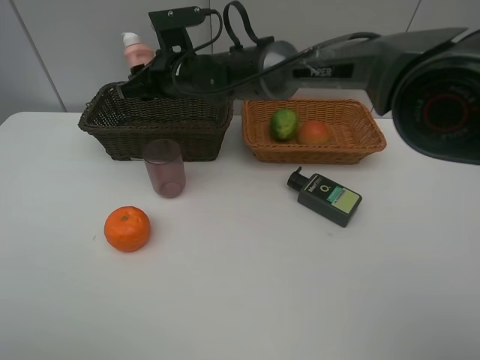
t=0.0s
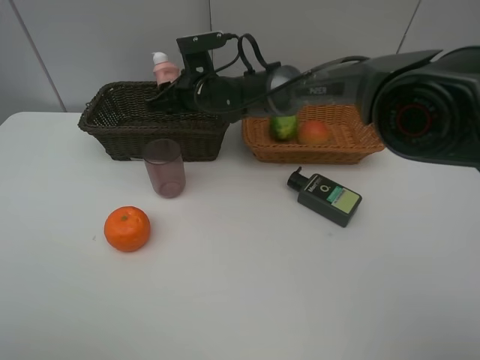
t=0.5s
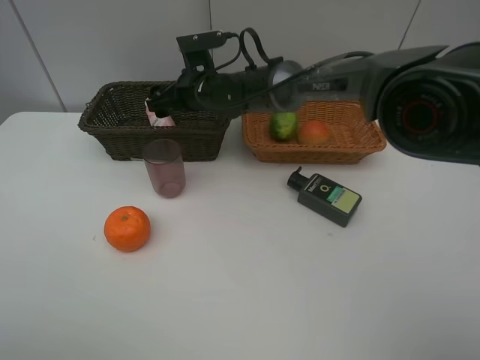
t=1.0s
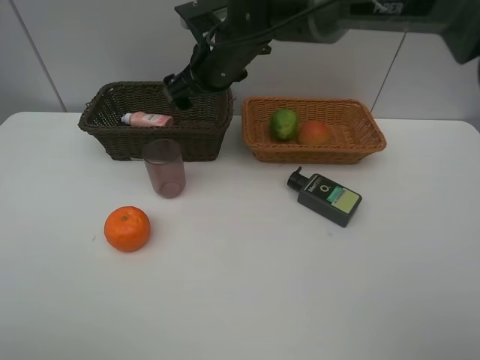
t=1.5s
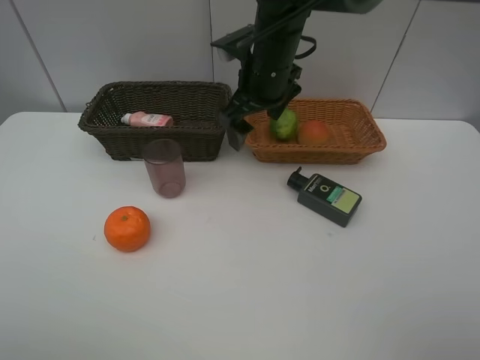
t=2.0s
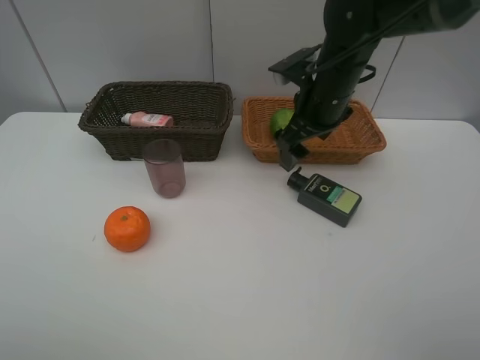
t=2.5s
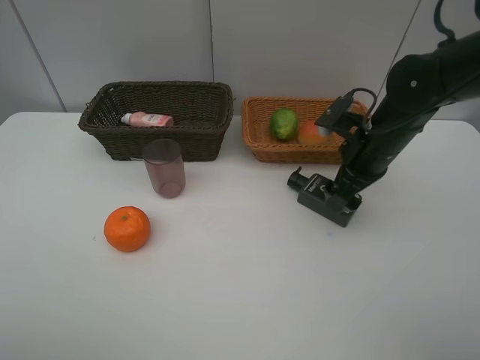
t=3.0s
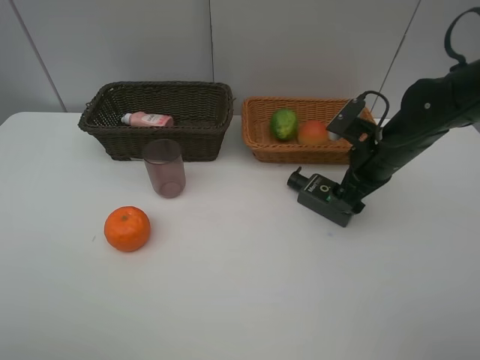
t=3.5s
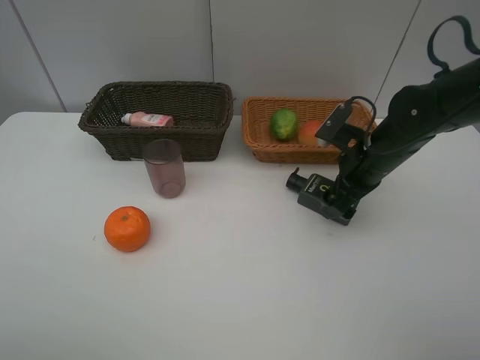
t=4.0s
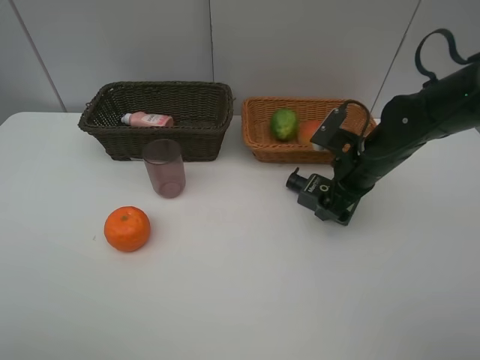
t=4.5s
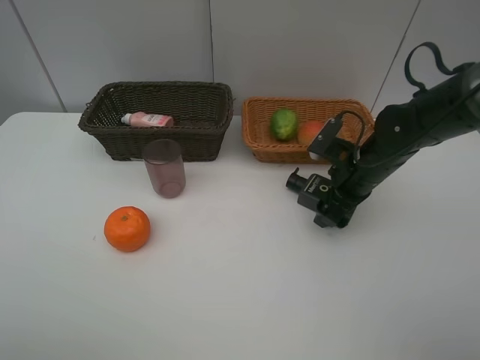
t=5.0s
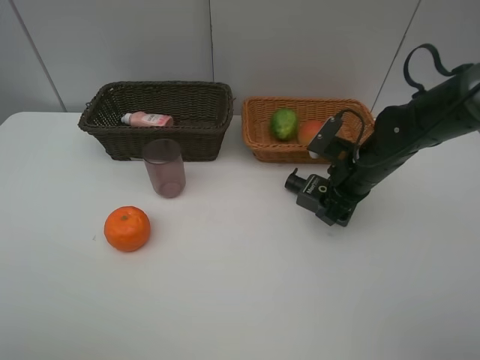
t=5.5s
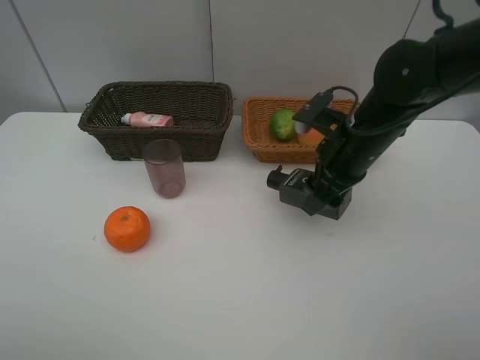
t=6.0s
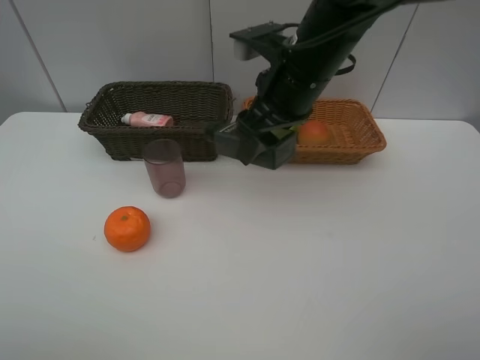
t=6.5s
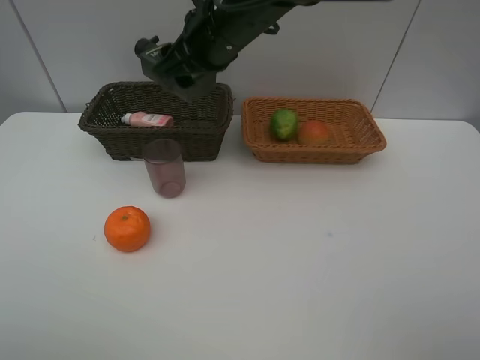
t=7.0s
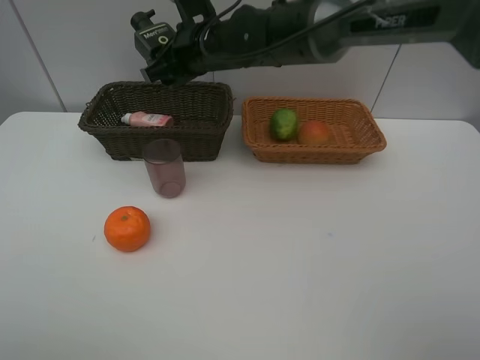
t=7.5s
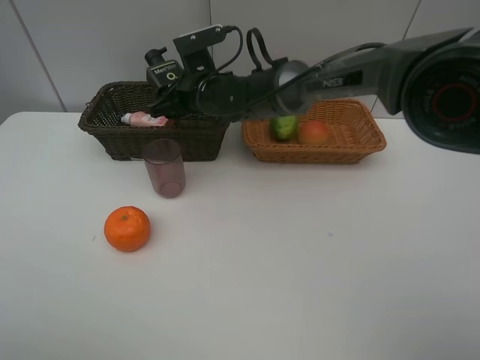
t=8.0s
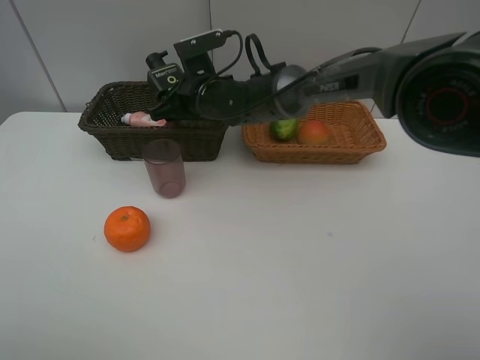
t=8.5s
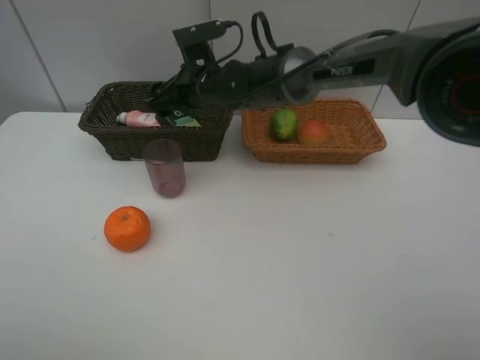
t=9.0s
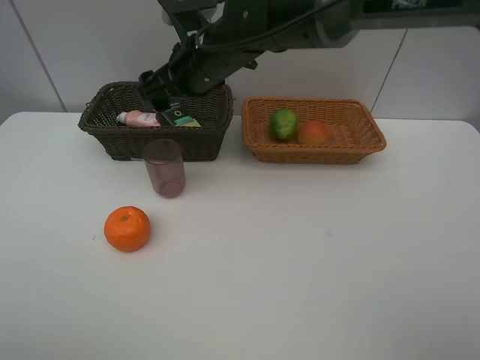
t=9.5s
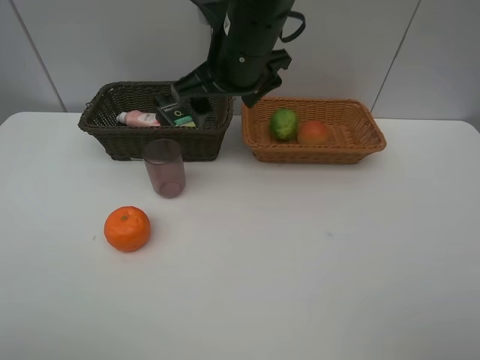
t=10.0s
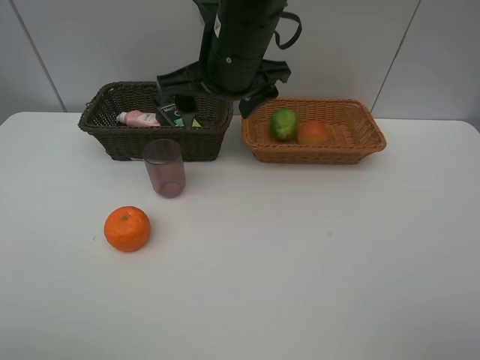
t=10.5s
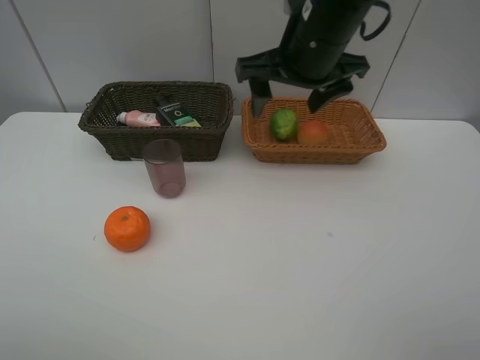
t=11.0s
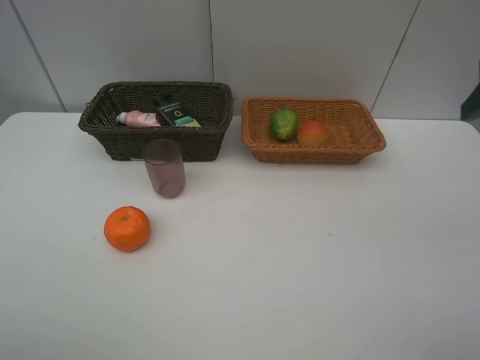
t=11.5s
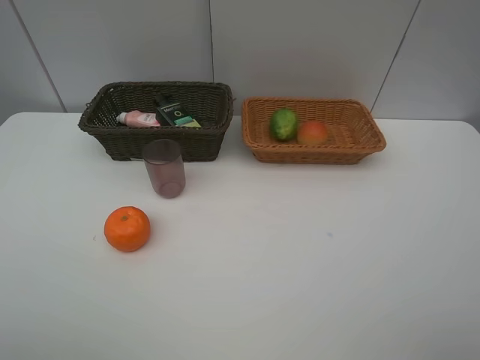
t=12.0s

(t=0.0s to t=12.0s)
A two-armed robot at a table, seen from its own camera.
Task of the whole recording: place multiple objects separately in different baskets.
t=0.0s - t=2.0s: The right gripper goes about 15 cm to the right and upward, and opens.
t=2.0s - t=4.0s: The right gripper travels to the right, downward and backward by some 20 cm.
t=4.0s - t=6.0s: The right gripper shifts some 5 cm upward, and closes up.
t=6.0s - t=8.0s: The right gripper moves to the left and forward, approximately 25 cm.
t=8.0s - t=10.0s: The right gripper travels upward, backward and to the right by approximately 15 cm, and opens up.
t=10.0s - t=12.0s: The right gripper is displaced backward and to the right by approximately 40 cm.

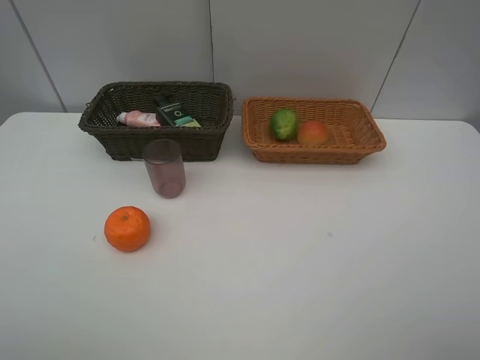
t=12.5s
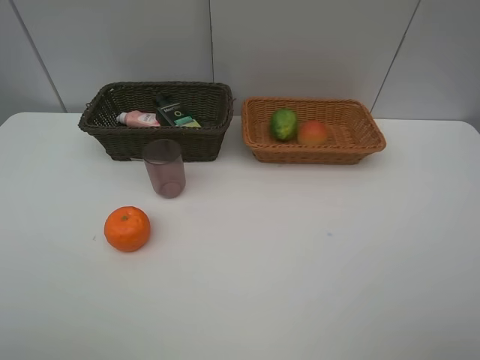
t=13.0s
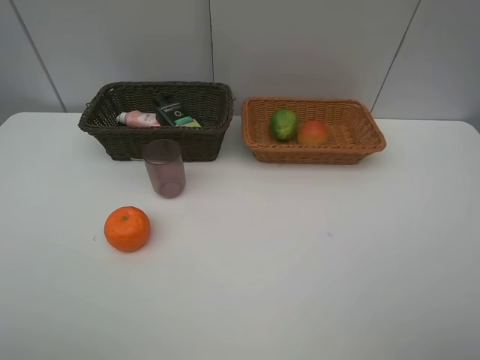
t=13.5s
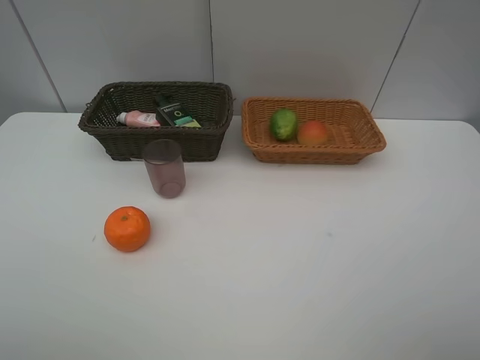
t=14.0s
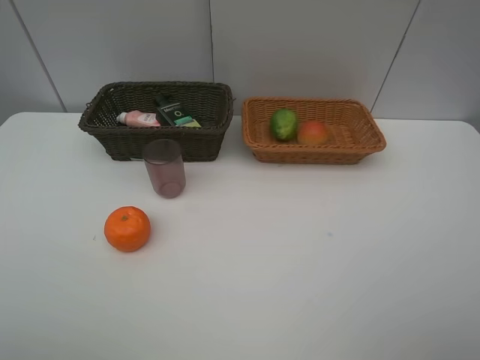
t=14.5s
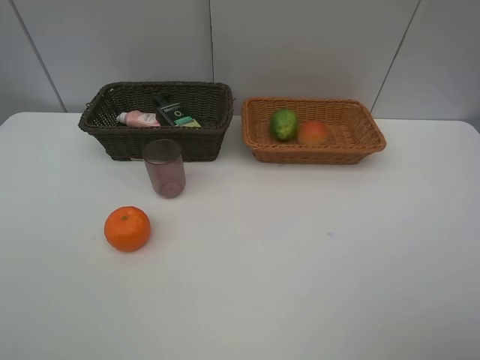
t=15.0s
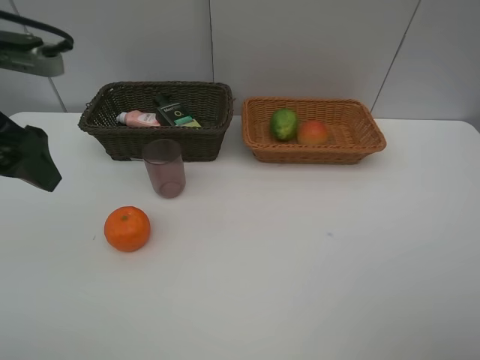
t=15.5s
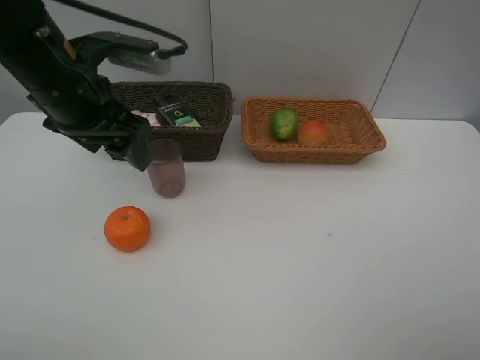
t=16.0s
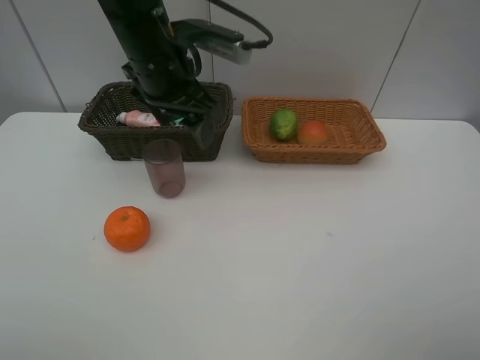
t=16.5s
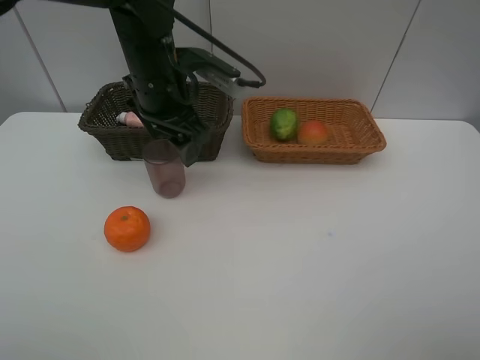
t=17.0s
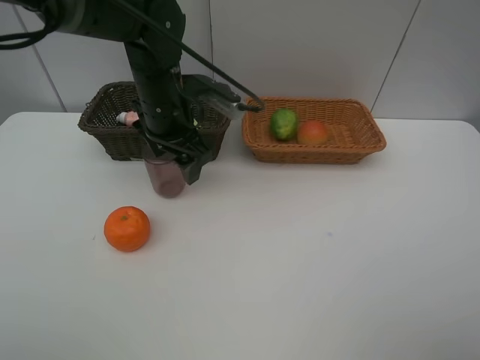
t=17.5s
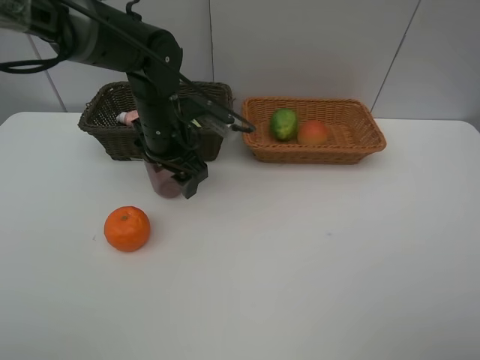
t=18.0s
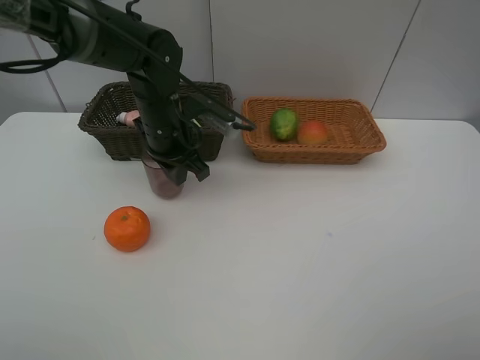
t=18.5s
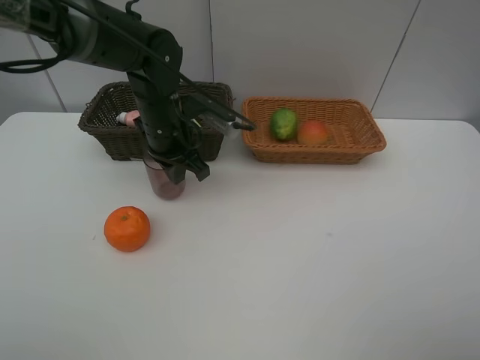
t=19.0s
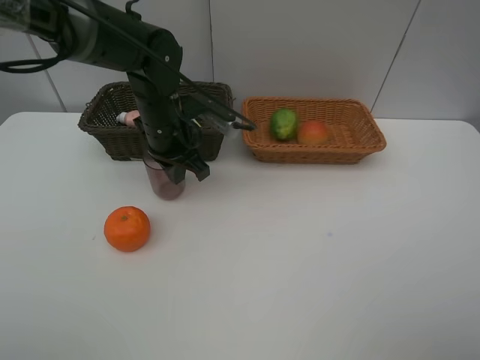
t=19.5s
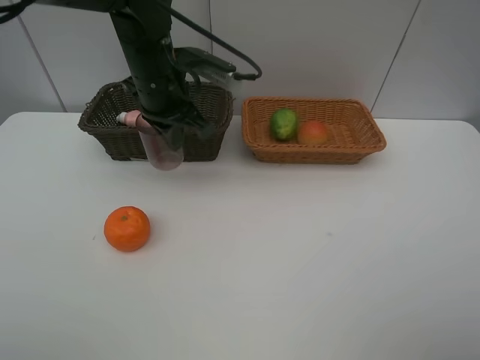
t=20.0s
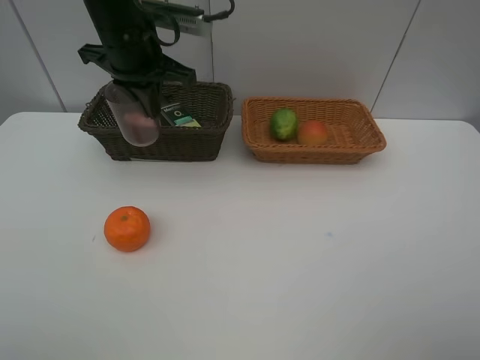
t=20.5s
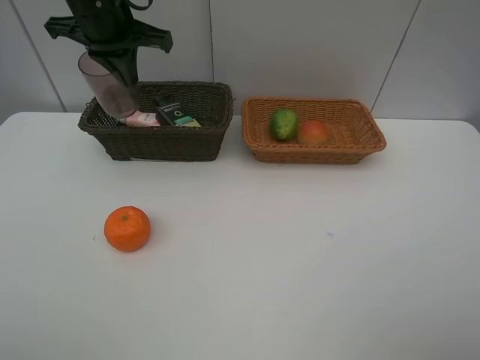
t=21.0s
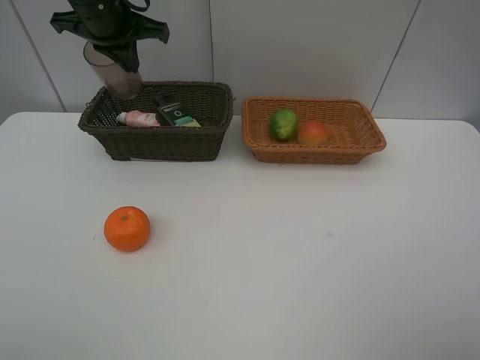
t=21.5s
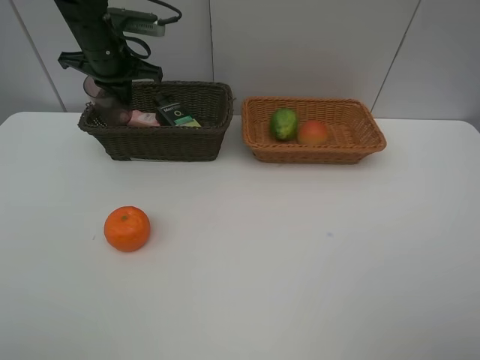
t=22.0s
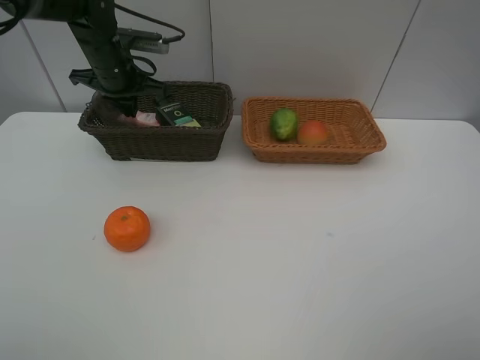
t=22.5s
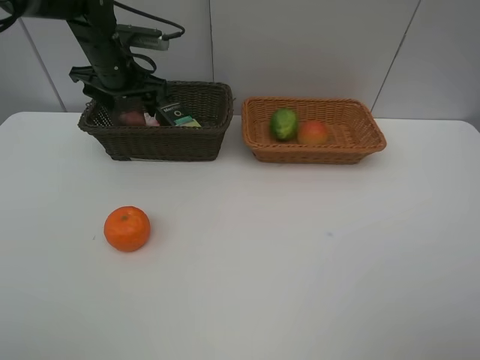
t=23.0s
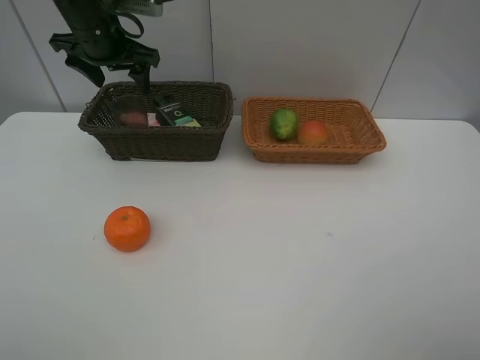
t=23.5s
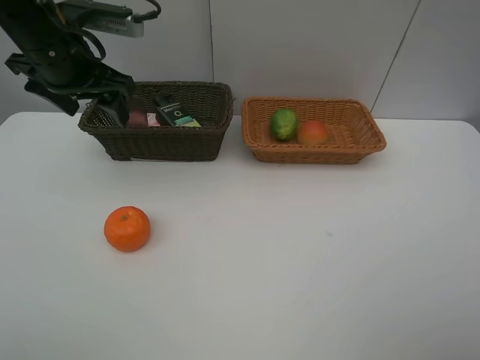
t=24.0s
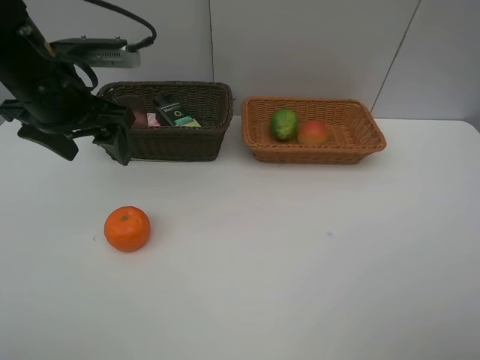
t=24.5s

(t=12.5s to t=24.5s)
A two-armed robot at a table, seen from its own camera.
Task of the whole recording: place multiple objects separately in different baskets.
t=14.5s - t=16.5s: The left gripper goes some 40 cm forward and to the right.
t=16.5s - t=18.5s: The left gripper moves downward, about 10 cm, and closes.
t=18.5s - t=20.5s: The left gripper goes some 15 cm upward.
t=20.5s - t=22.5s: The left gripper heads forward, downward and to the left, covering about 15 cm.
t=22.5s - t=24.5s: The left gripper moves backward, some 15 cm, and opens up.

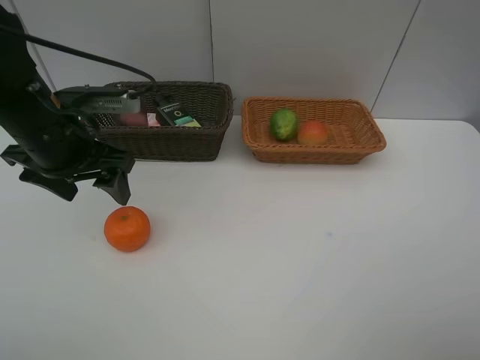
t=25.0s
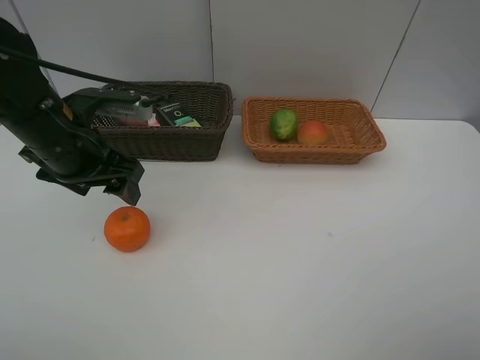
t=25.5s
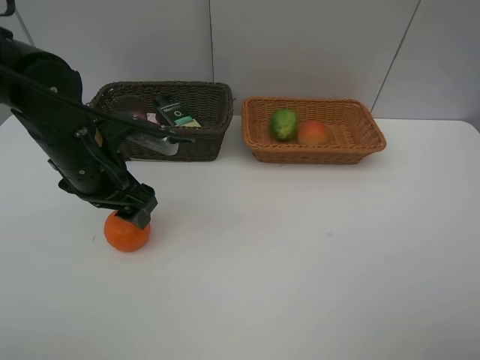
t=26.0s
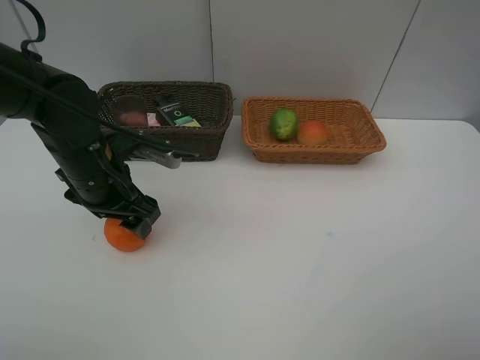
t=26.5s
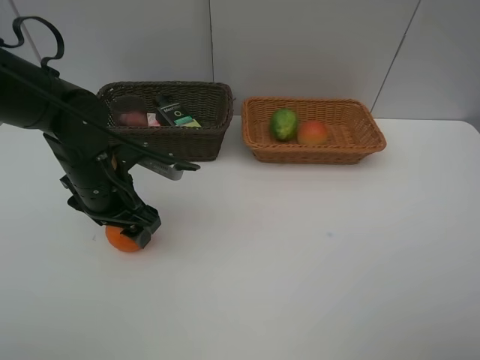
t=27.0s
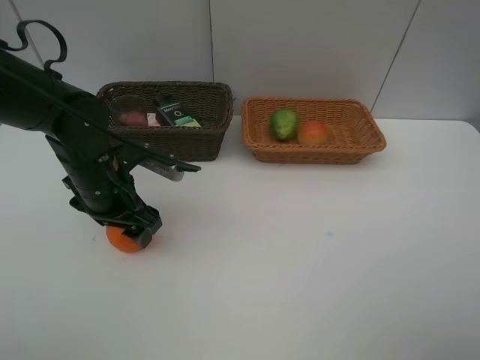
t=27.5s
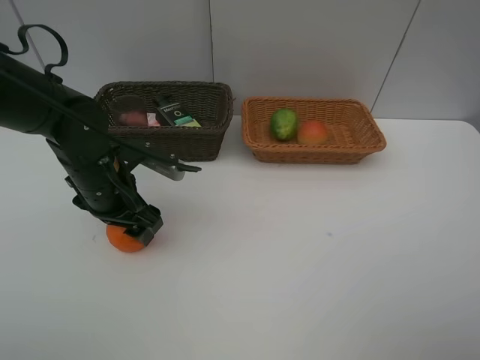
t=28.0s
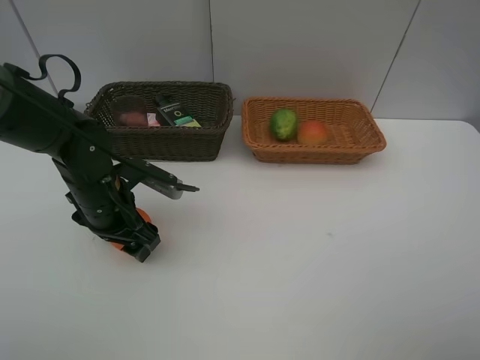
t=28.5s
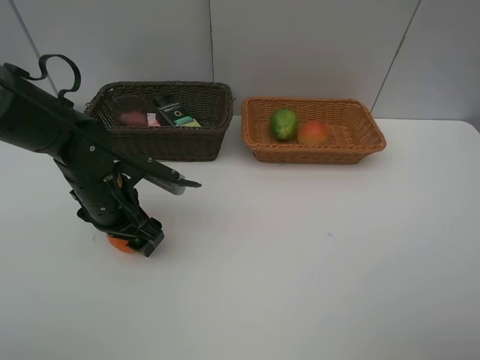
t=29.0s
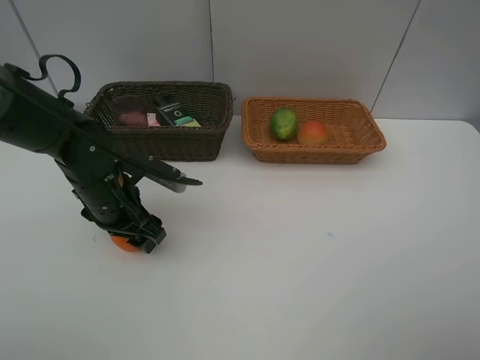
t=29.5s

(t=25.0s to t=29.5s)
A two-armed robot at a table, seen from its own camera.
Task of the whole recording: place multiple objects separately in different baskets.
t=25.0s - t=27.0s: The left gripper heads downward, covering some 10 cm.
t=27.0s - t=29.5s: The grippers stay close to where they were, moving slightly.
